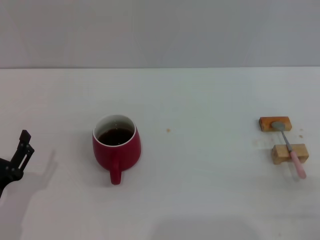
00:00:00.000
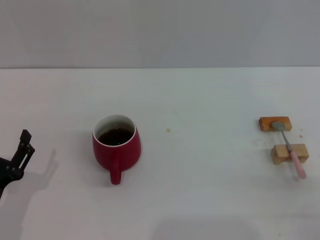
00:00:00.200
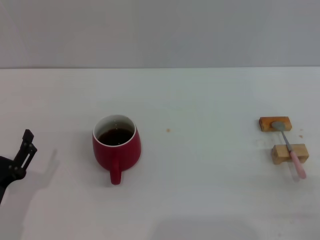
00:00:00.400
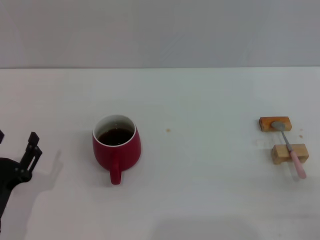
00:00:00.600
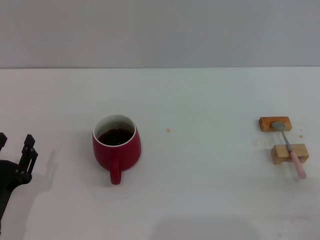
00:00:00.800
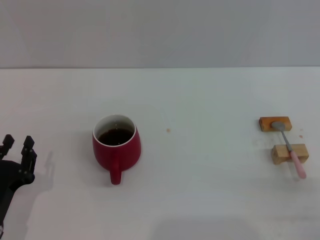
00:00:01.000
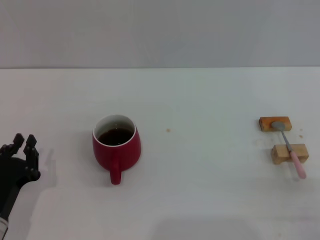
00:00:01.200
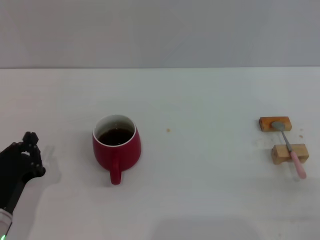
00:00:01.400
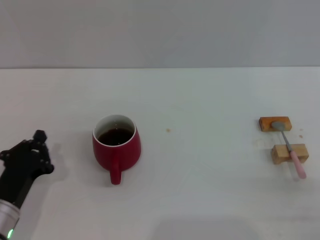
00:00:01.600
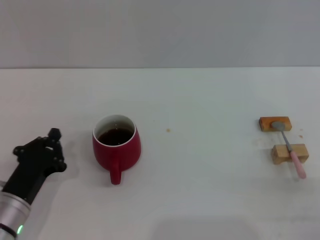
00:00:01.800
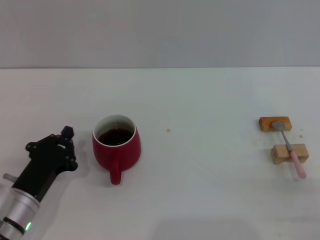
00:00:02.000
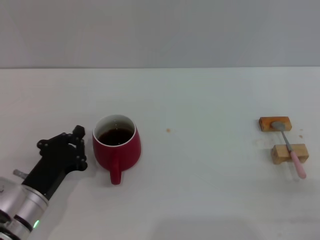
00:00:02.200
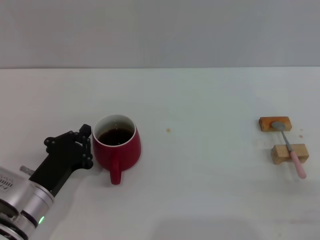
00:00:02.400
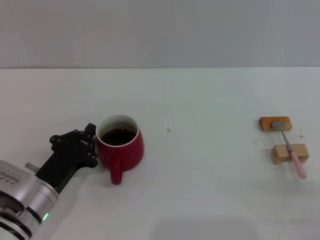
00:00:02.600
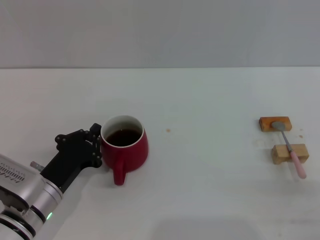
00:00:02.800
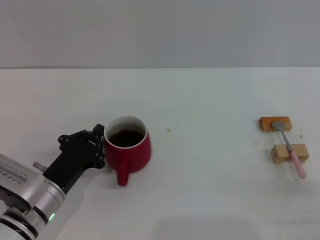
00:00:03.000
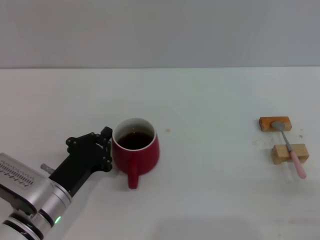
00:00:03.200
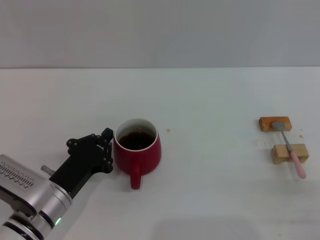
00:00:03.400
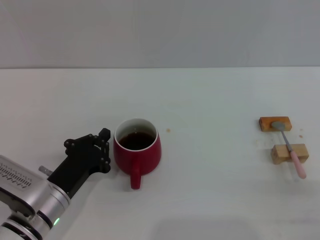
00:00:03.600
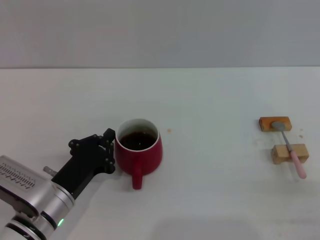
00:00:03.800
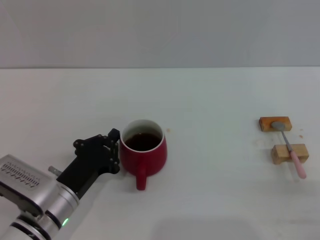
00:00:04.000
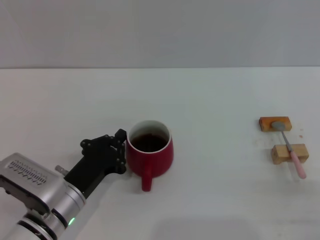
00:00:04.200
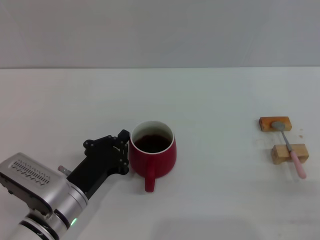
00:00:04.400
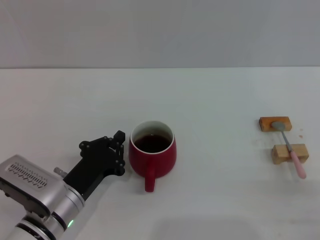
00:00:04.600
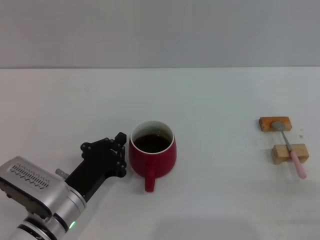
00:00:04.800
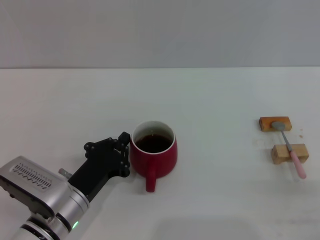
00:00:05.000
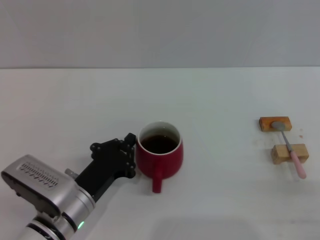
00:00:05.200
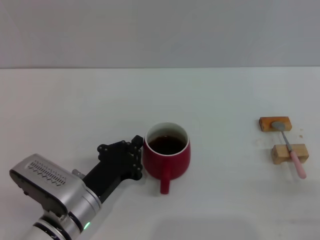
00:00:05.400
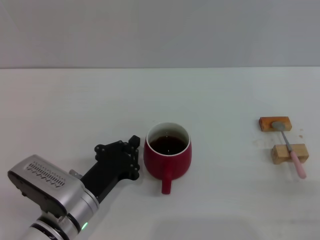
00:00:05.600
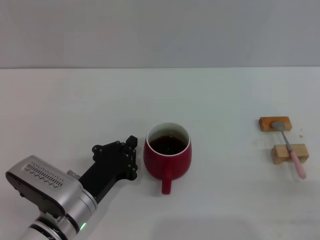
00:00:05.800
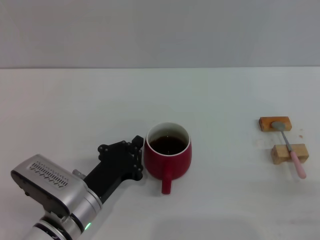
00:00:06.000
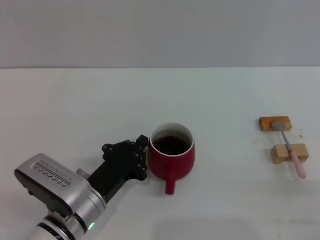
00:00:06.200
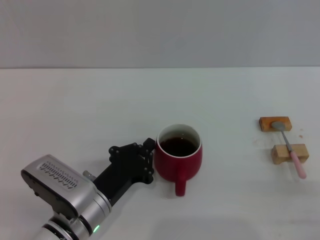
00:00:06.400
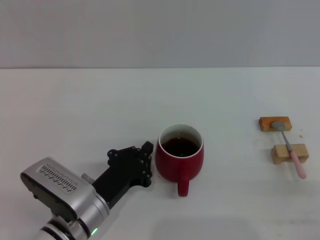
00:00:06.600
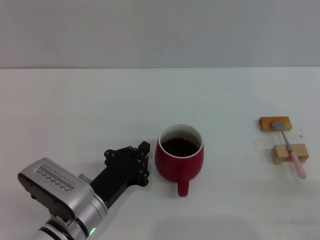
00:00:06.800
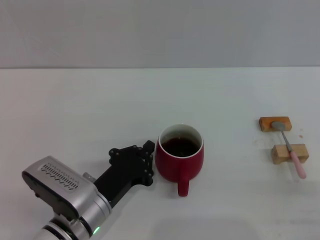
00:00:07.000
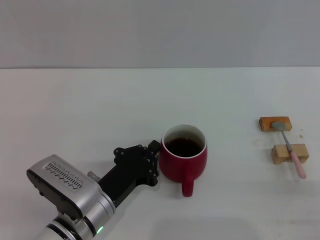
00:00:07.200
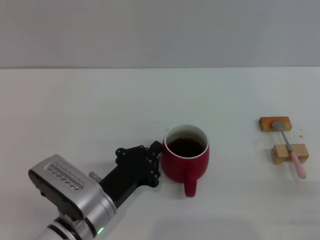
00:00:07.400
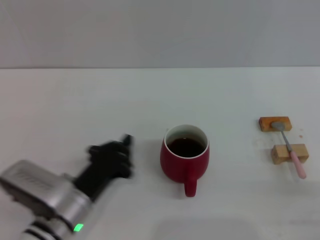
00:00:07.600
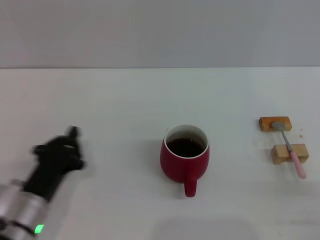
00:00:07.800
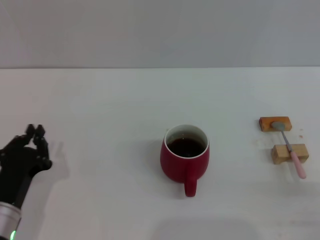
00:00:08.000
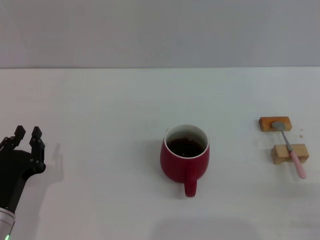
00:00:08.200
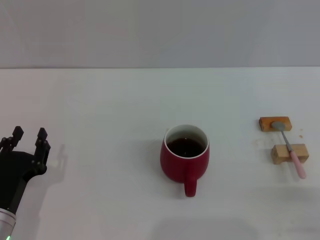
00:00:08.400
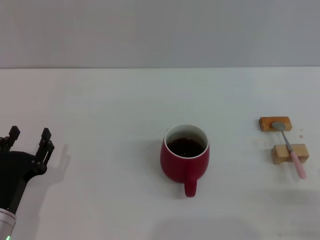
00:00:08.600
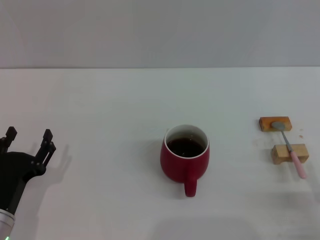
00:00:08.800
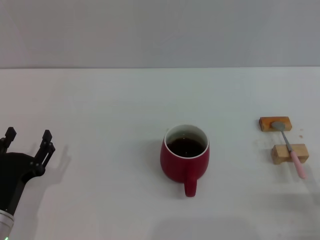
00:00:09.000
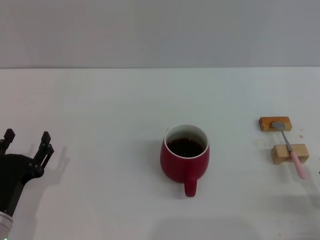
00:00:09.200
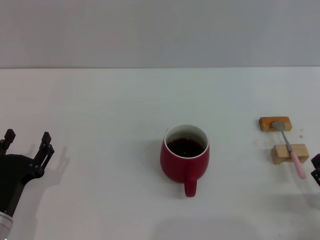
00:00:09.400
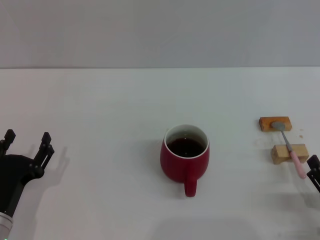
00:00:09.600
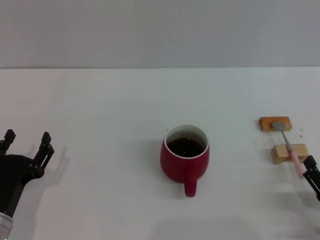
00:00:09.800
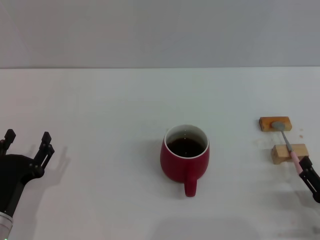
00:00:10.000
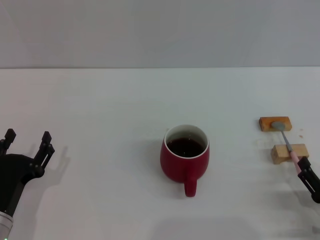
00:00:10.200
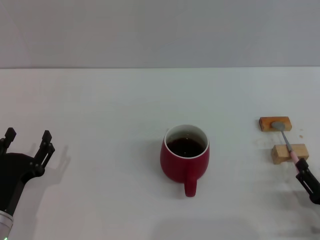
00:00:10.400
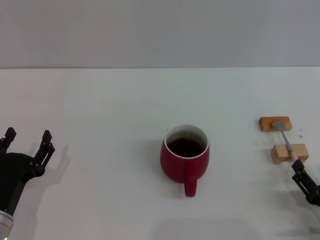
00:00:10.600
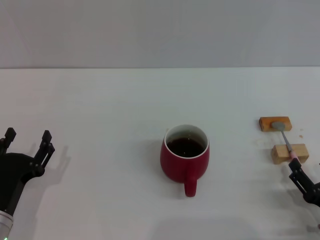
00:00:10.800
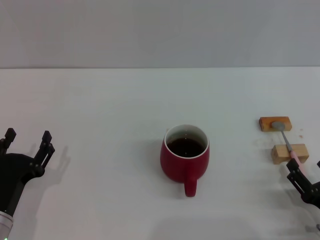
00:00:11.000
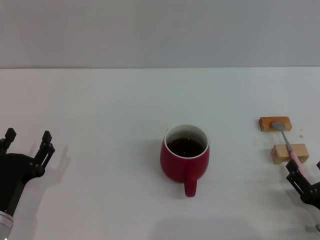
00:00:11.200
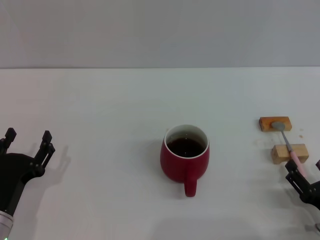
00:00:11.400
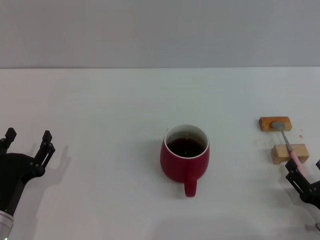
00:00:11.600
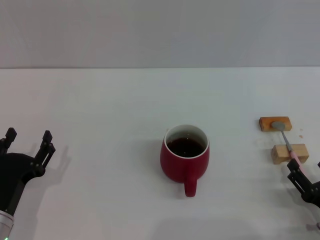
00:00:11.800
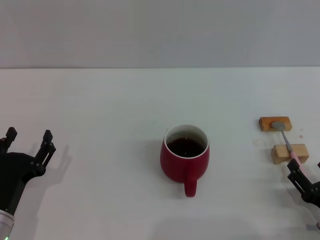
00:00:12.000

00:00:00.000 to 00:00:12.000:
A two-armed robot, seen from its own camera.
Task of the whole recording: Move the red cup to the center, lift the pink spoon, stir it three times in the cup, and put the spoon into the cup.
Step, 00:00:00.000 to 00:00:07.400: Move the cup with coffee to the center of view with the left gripper.
00:00:00.000 to 00:00:01.600: The left gripper closes its fingers.
00:00:01.600 to 00:00:03.000: The left gripper moves some 5 cm.
00:00:03.000 to 00:00:06.000: There are only small adjustments of the grippers.
00:00:06.000 to 00:00:07.600: The grippers stay close to where they were, moving slightly.
00:00:07.600 to 00:00:09.000: The left gripper goes approximately 10 cm to the left, and opens up.
00:00:09.000 to 00:00:10.400: The grippers make only small movements.
00:00:10.400 to 00:00:12.000: Neither gripper changes place.

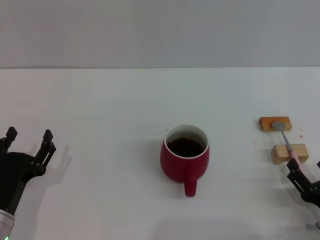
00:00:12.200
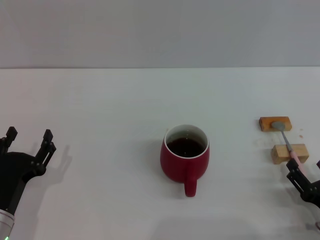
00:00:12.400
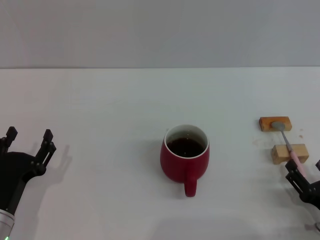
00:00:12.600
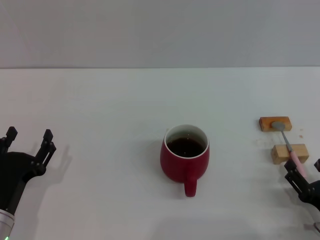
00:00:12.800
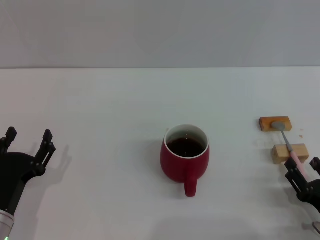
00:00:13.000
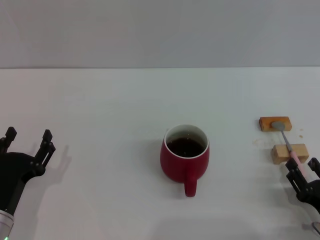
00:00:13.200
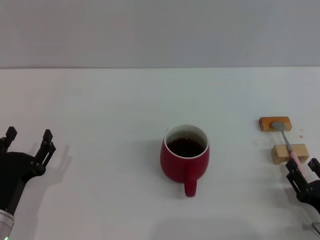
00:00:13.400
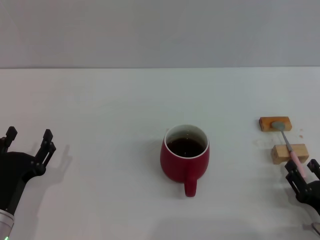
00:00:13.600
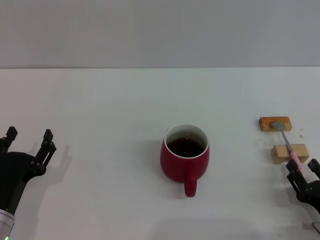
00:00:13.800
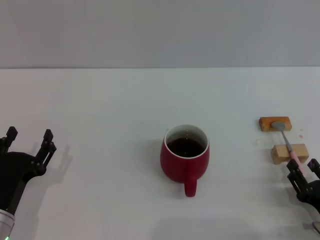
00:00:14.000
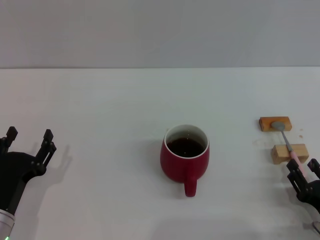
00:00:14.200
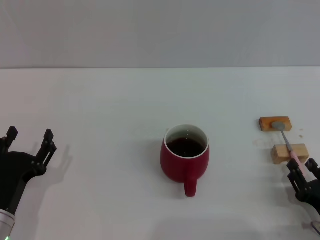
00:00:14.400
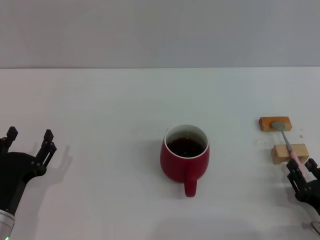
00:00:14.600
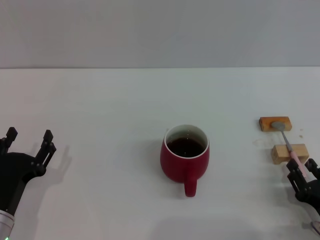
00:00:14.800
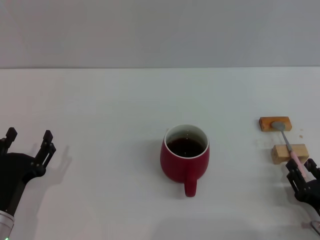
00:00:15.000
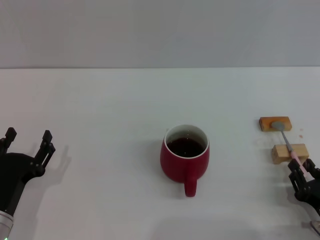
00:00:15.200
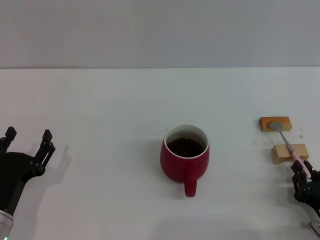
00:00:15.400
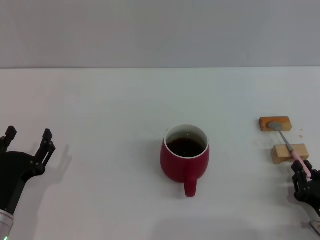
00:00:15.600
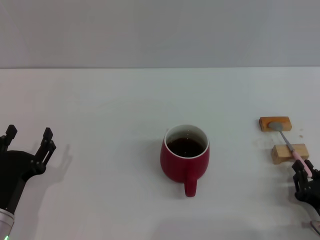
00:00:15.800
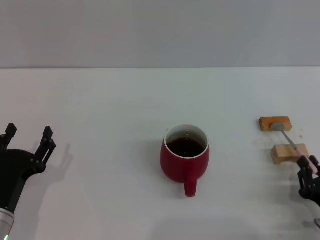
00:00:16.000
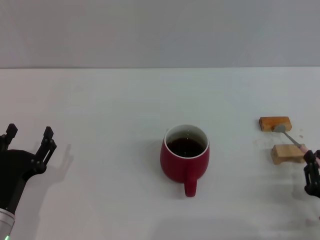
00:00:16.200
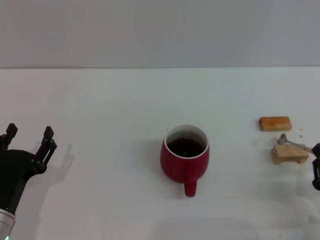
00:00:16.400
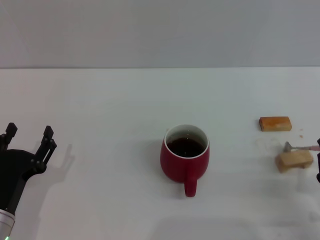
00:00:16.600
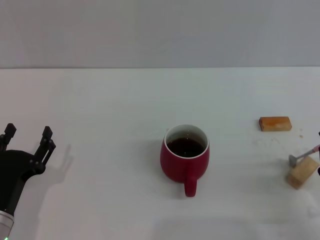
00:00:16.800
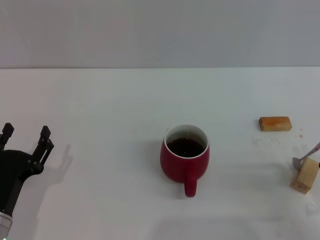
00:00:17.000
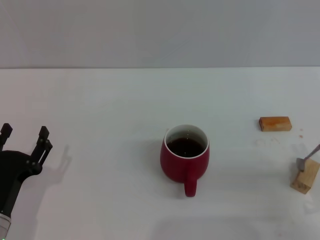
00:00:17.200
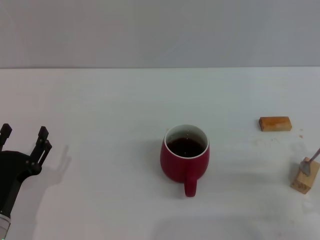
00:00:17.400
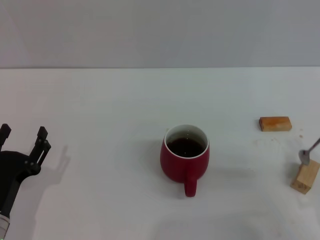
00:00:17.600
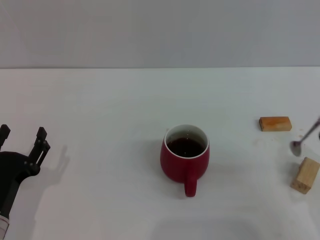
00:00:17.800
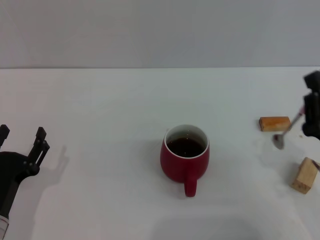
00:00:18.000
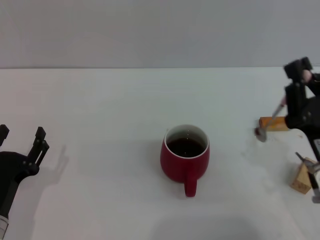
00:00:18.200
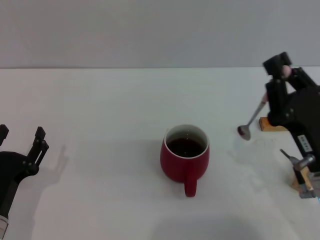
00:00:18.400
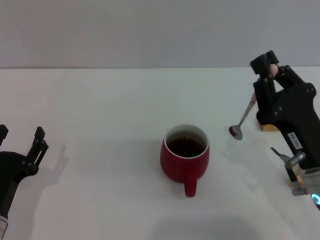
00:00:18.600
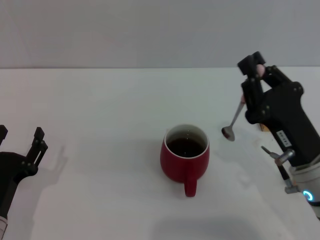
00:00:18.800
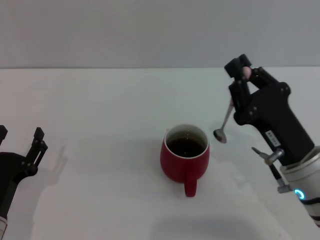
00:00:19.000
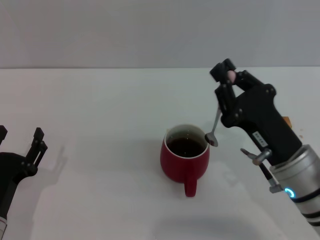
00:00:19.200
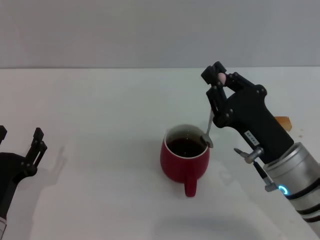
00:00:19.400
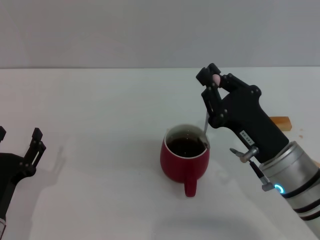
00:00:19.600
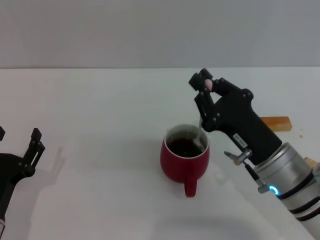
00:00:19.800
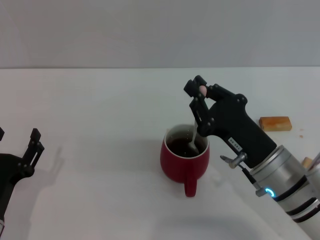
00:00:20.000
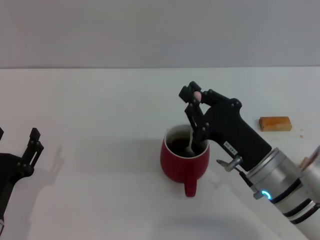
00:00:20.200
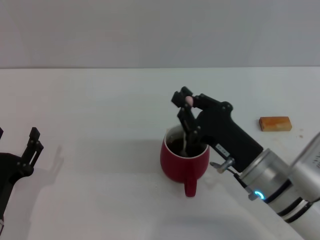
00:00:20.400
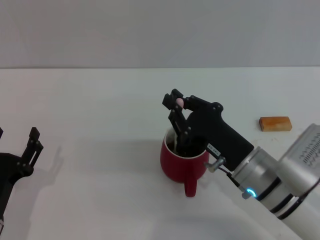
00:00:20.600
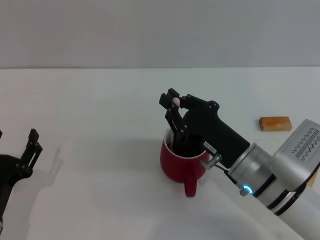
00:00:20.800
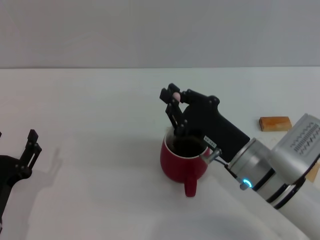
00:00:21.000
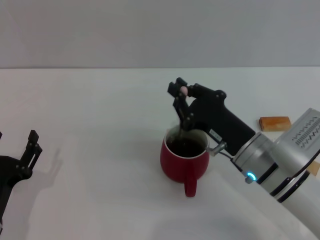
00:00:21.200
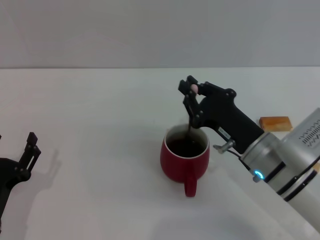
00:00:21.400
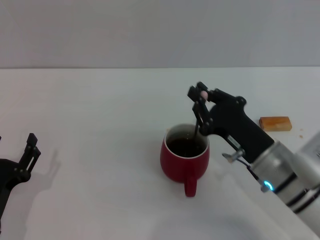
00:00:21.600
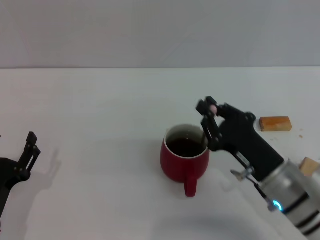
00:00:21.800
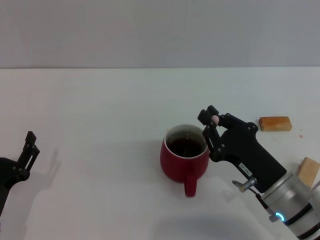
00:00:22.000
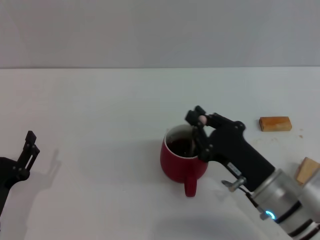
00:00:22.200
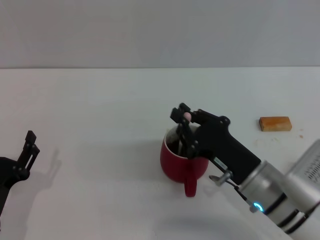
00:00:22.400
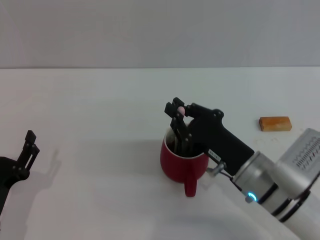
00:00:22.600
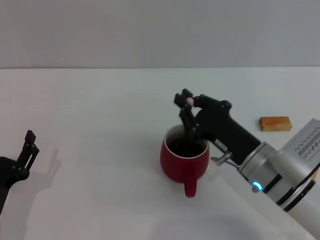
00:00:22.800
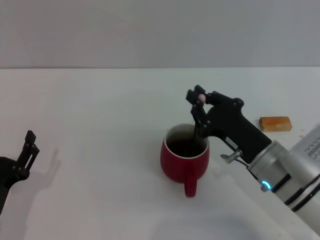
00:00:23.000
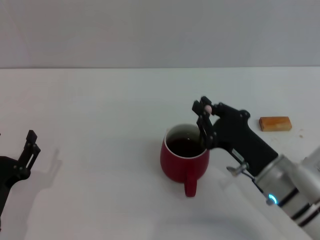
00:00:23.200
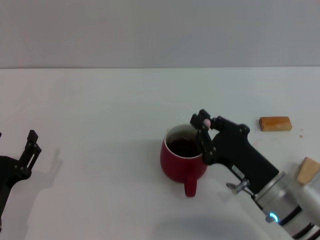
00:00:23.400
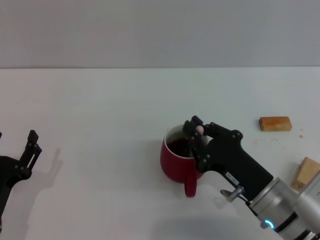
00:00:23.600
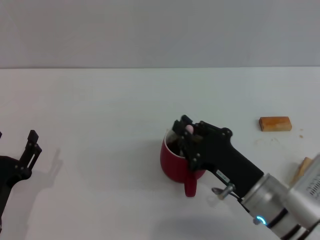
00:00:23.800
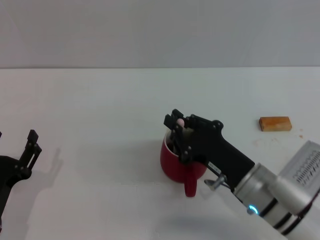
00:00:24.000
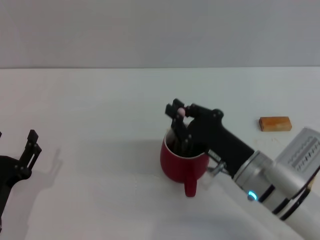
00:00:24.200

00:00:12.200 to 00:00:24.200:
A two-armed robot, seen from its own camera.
Task of the whole recording: Move the red cup to the center, lift the pink spoon, stir it three times in the cup, and put the spoon into the cup.
Step, 00:00:12.200 to 00:00:17.600: Pick up the spoon with the right gripper.
00:00:12.200 to 00:00:15.200: Both grippers stay about where they are.
00:00:15.200 to 00:00:16.600: The right gripper closes its fingers.
00:00:16.600 to 00:00:18.200: The right gripper heads upward and to the left, covering some 10 cm.
00:00:18.200 to 00:00:19.800: The right gripper shifts approximately 5 cm to the left.
00:00:19.800 to 00:00:21.200: The grippers stay close to where they were, moving slightly.
00:00:22.600 to 00:00:24.200: The grippers move only a little.
